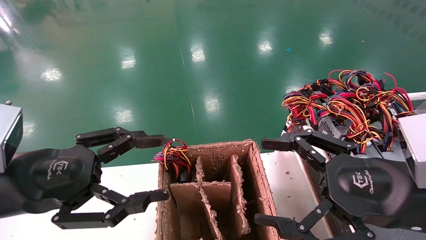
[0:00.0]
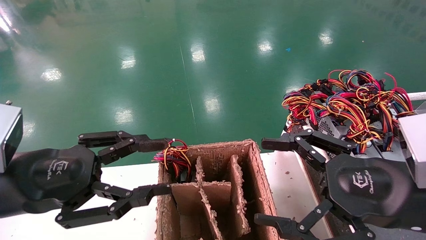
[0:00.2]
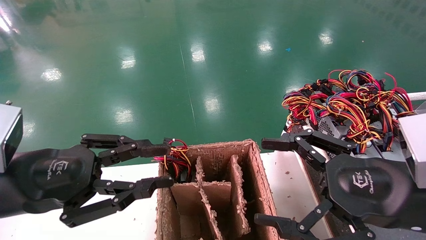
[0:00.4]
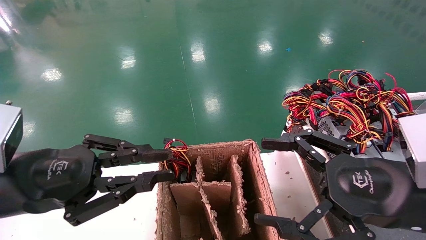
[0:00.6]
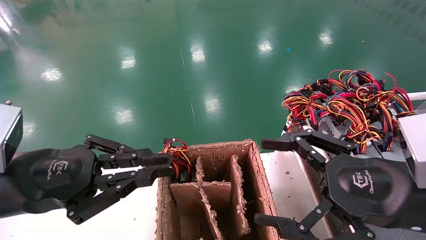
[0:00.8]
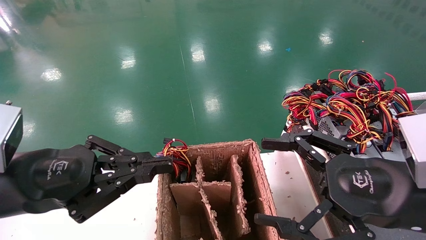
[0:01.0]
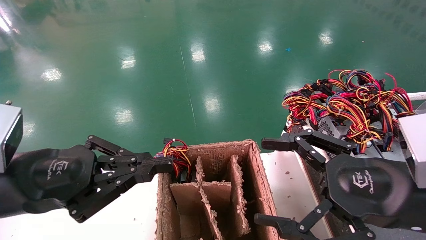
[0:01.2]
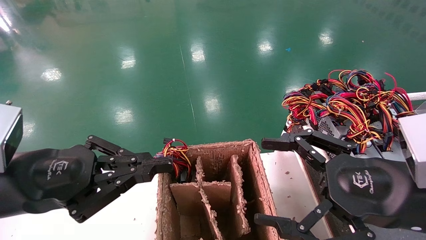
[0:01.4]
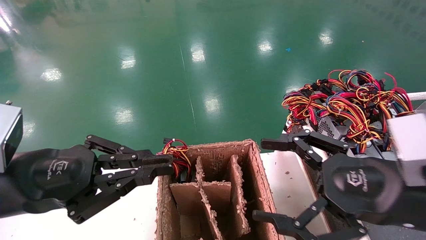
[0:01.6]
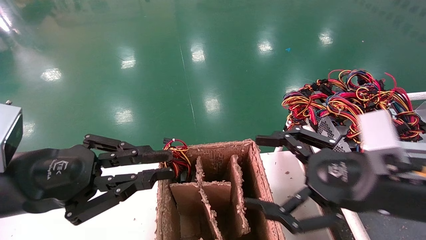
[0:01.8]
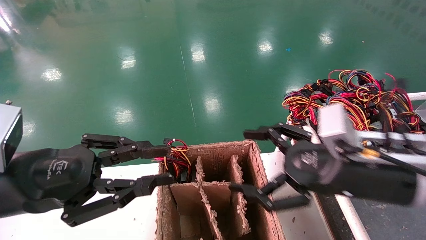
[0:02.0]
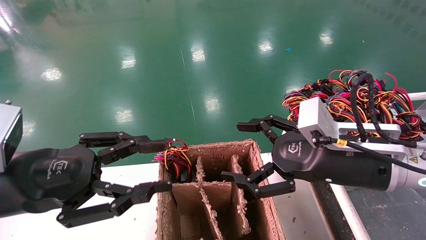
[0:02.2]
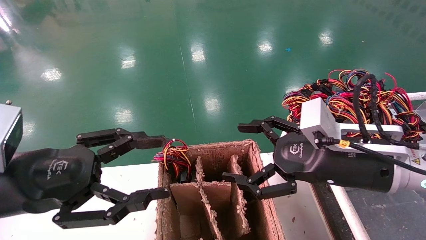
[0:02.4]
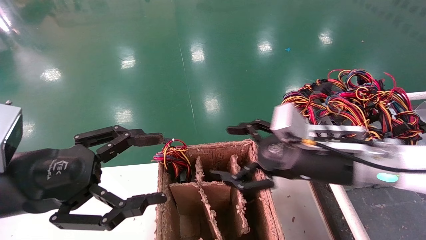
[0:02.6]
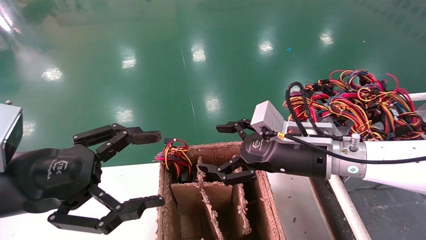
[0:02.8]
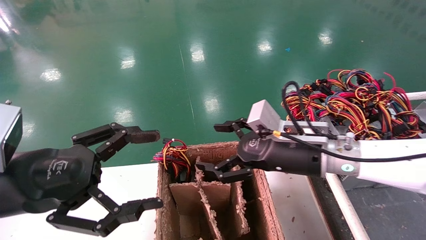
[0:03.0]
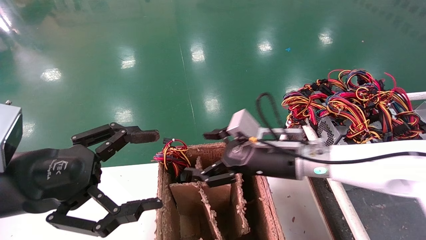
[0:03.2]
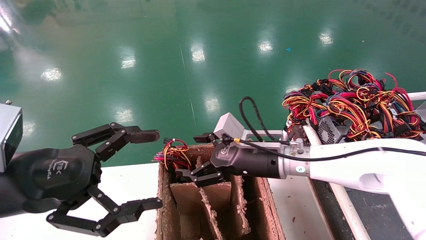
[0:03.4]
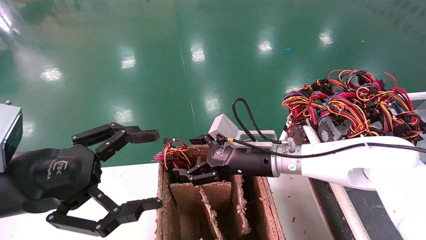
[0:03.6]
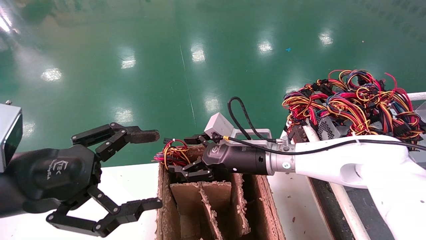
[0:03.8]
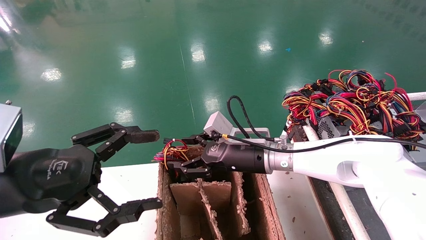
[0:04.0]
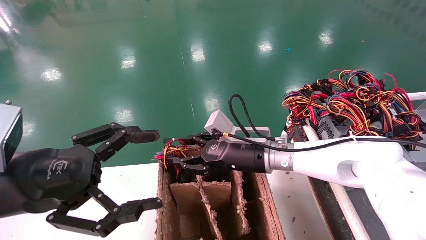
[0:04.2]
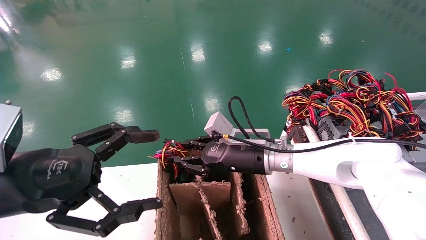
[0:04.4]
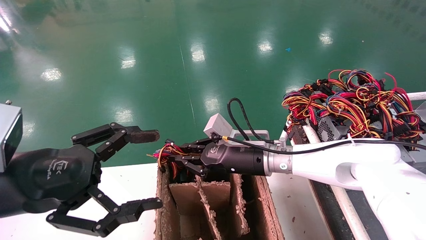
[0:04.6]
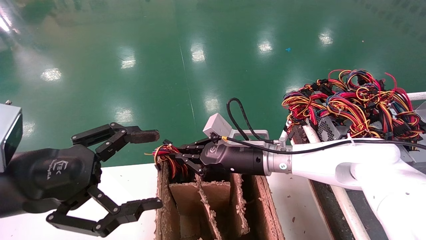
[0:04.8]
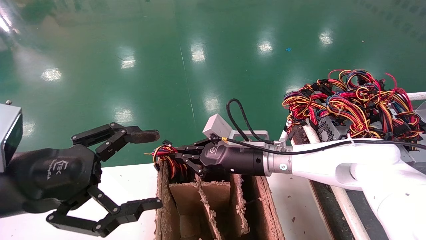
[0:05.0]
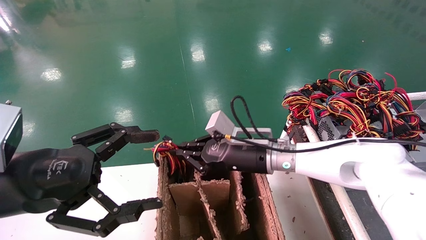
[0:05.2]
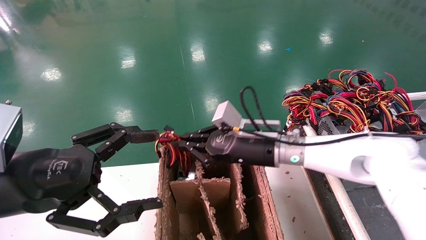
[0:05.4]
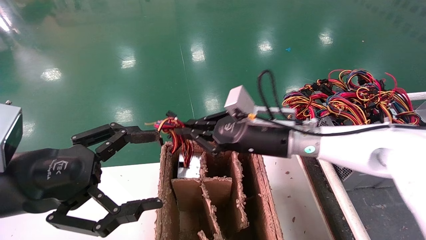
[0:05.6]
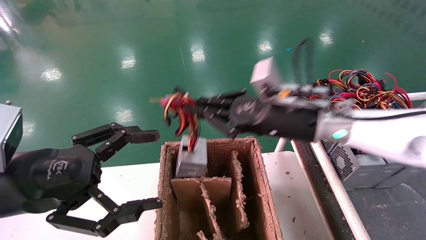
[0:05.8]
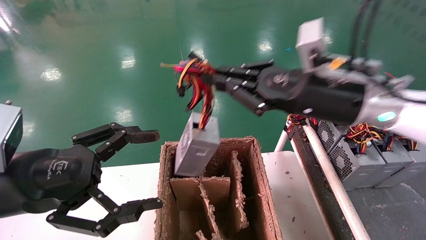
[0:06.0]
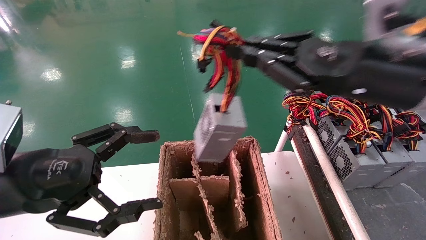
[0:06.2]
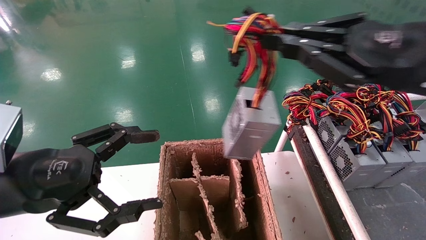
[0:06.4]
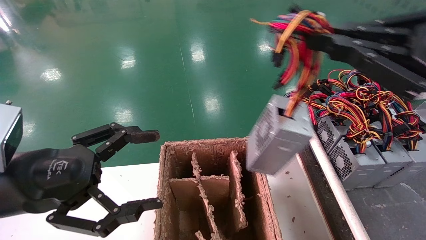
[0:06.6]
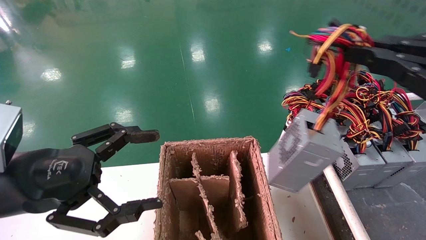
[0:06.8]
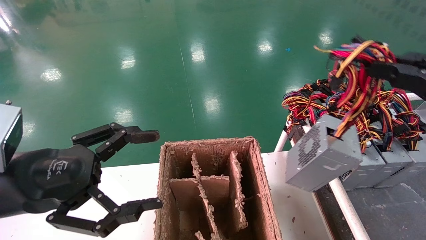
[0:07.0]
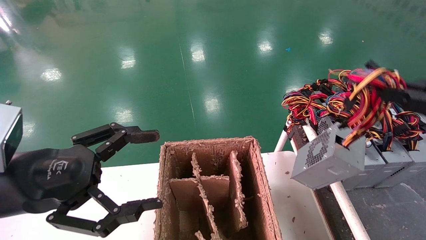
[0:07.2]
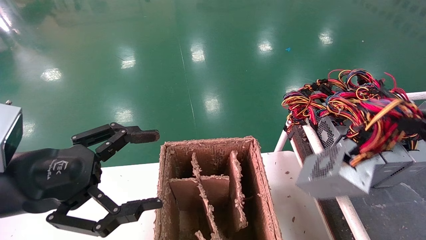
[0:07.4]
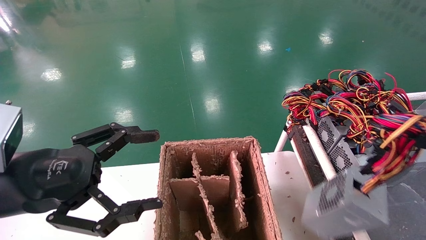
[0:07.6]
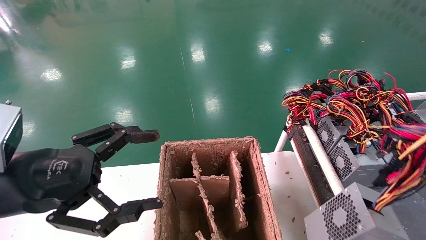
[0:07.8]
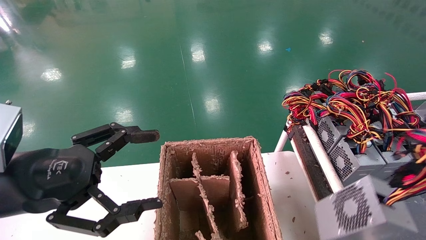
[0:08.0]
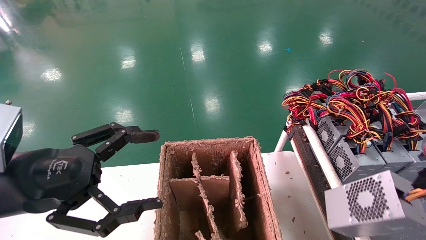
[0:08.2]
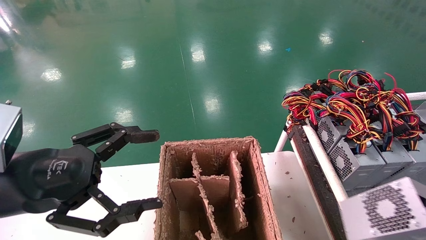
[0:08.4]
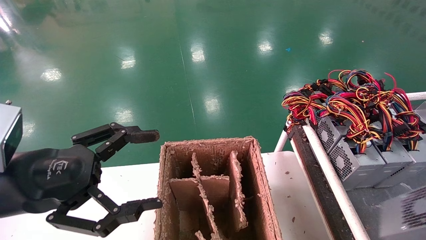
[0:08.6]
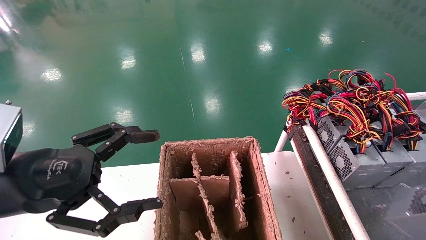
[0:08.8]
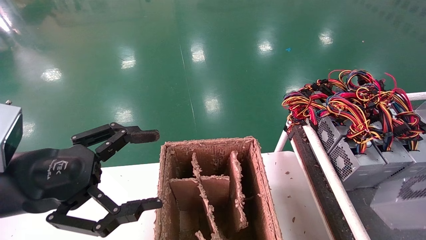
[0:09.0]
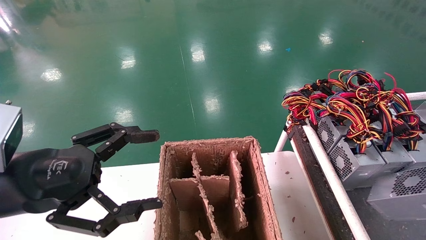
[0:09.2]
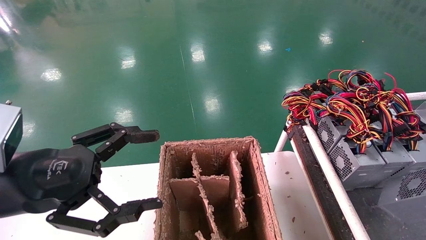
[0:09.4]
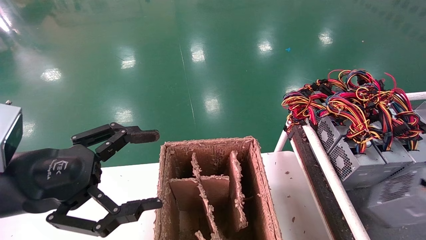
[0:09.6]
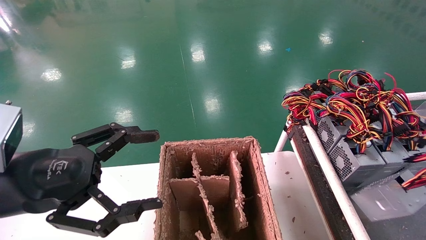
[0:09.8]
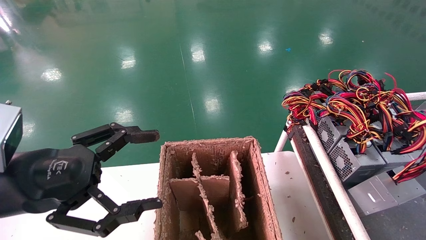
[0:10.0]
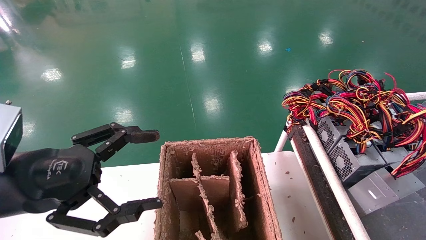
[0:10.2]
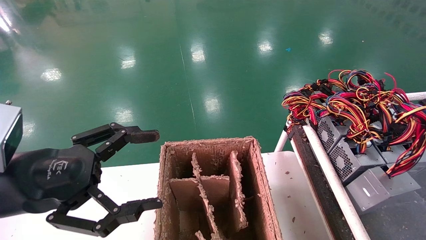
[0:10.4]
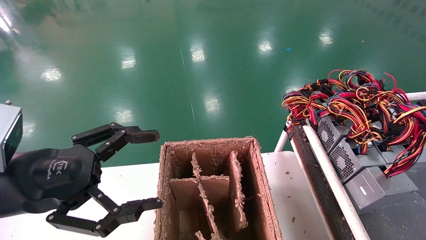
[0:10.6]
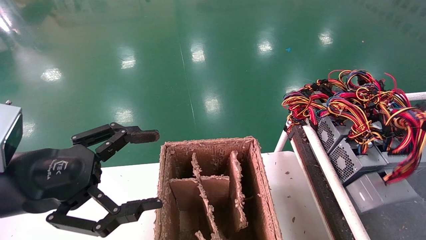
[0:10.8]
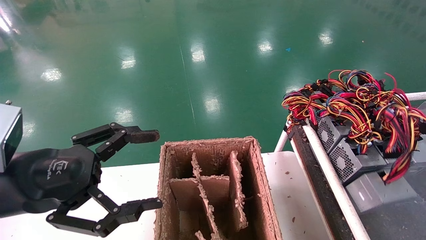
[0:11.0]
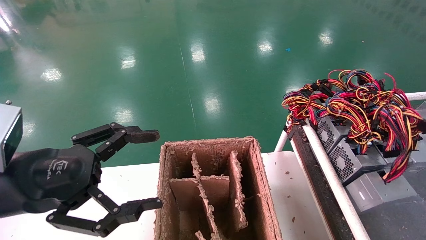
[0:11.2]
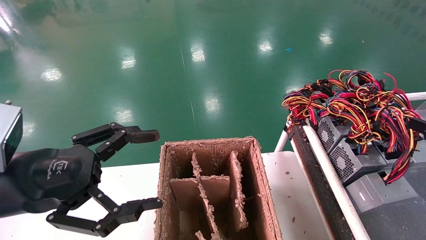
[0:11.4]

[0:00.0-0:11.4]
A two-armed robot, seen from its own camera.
Step, 0:01.6 to 0:04.8: Grab and lift the power supply from the large box.
0:00.0 to 0:01.4: The left gripper closes its fingers.
0:01.4 to 0:02.8: The left gripper opens. The right gripper moves forward and to the left, some 15 cm.
0:02.8 to 0:04.2: The right gripper is displaced to the left and forward by about 10 cm, and closes.
0:04.2 to 0:05.6: The right gripper shifts approximately 5 cm upward, and closes.
0:05.6 to 0:07.2: The right gripper heads to the right and backward, covering roughly 35 cm.
0:07.2 to 0:08.6: The right gripper travels backward and to the right by some 15 cm.
0:08.6 to 0:10.0: The right gripper goes some 10 cm forward and downward.
0:10.0 to 0:11.4: The right gripper moves some 5 cm.

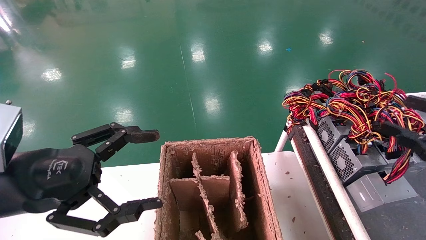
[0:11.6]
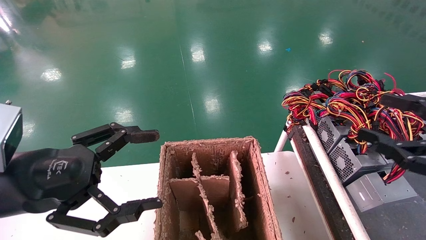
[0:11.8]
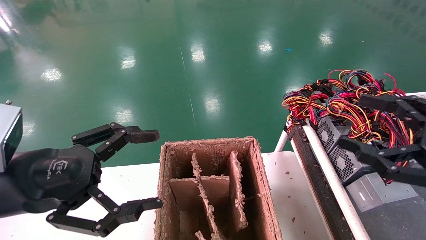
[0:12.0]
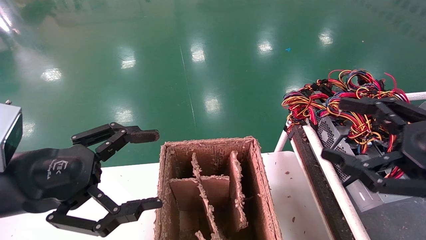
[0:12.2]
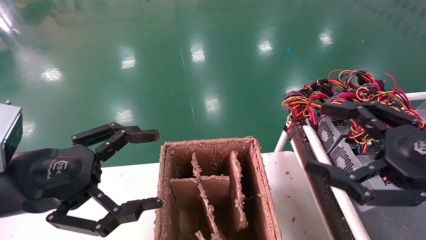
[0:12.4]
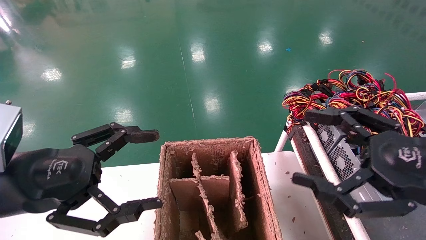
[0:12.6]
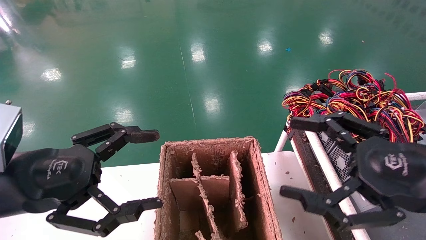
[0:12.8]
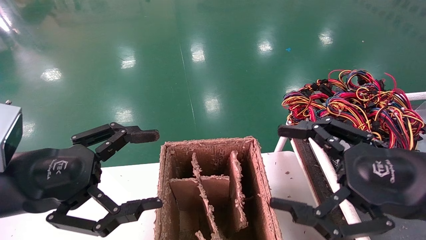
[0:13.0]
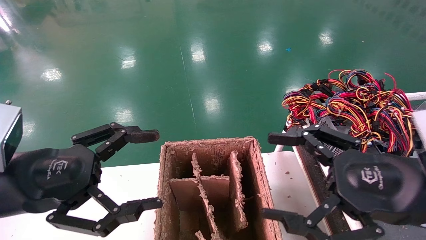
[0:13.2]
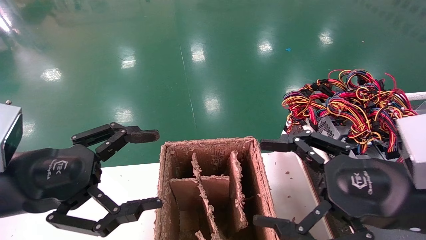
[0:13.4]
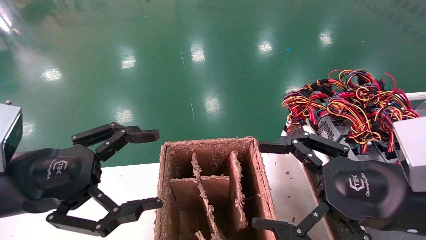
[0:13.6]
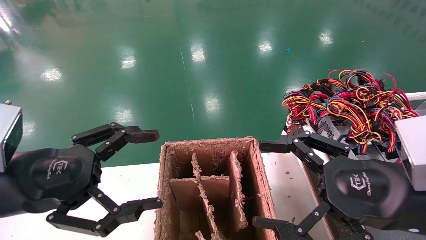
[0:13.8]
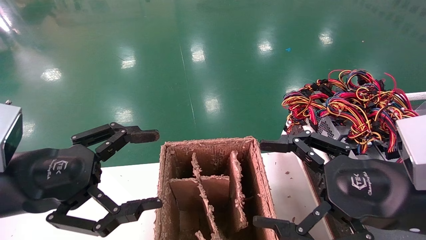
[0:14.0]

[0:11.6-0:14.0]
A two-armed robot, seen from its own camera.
0:11.6 to 0:12.8: The right gripper shifts roughly 15 cm to the left, and opens.
0:12.8 to 0:14.0: There are only small adjustments of the grippers.

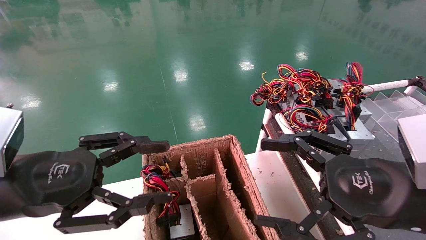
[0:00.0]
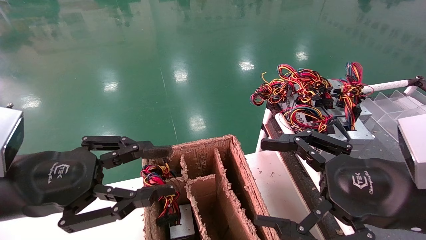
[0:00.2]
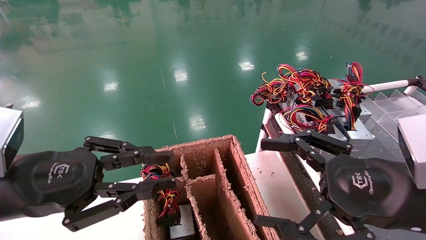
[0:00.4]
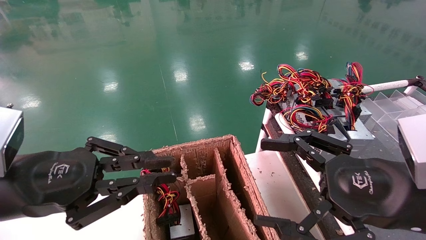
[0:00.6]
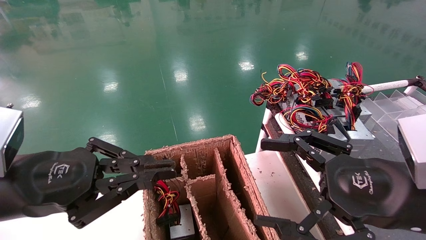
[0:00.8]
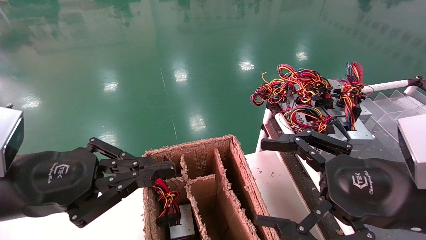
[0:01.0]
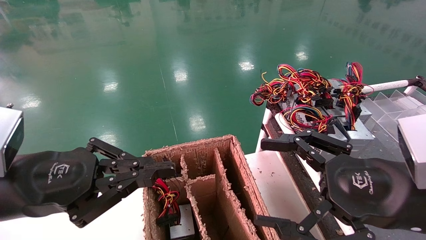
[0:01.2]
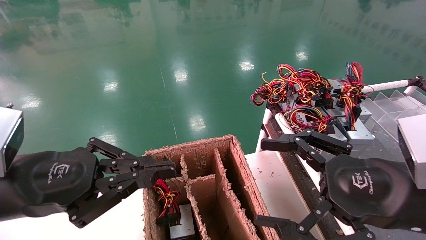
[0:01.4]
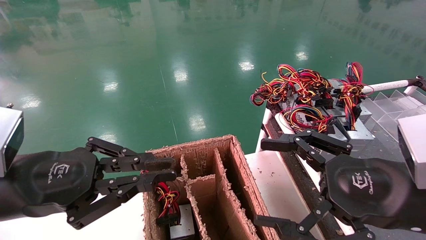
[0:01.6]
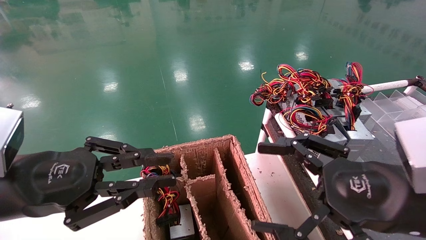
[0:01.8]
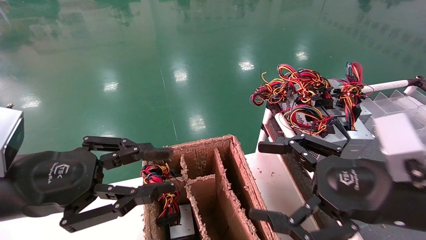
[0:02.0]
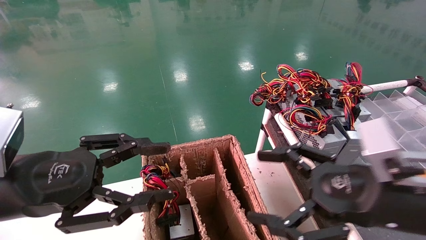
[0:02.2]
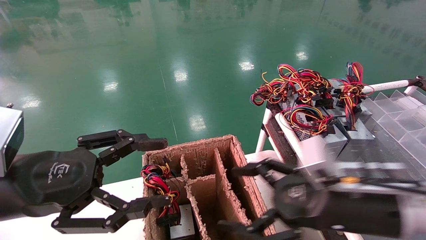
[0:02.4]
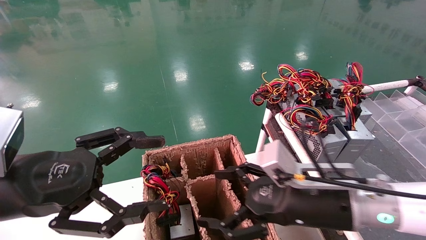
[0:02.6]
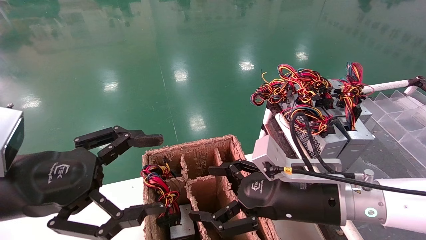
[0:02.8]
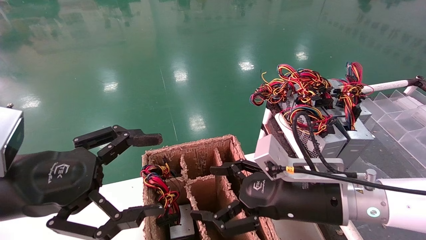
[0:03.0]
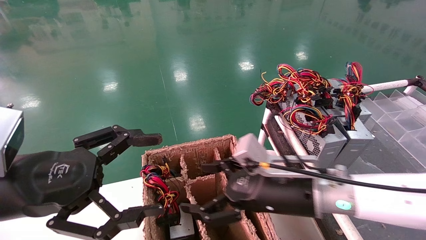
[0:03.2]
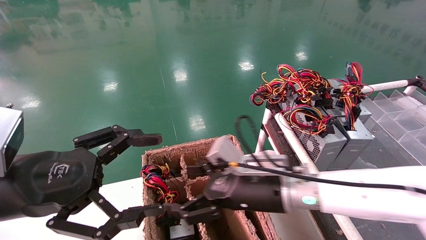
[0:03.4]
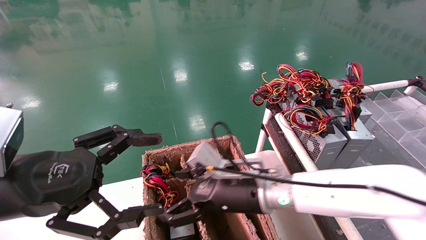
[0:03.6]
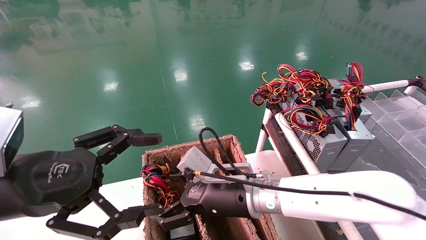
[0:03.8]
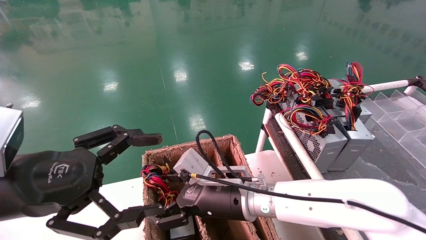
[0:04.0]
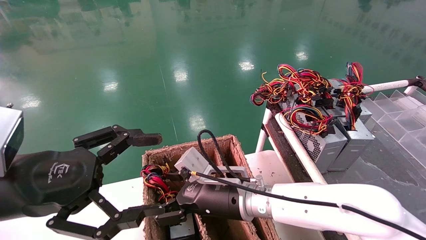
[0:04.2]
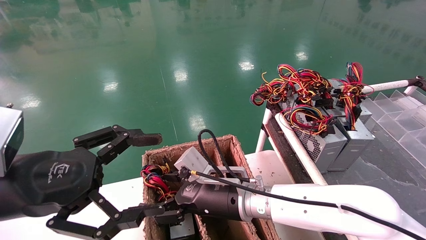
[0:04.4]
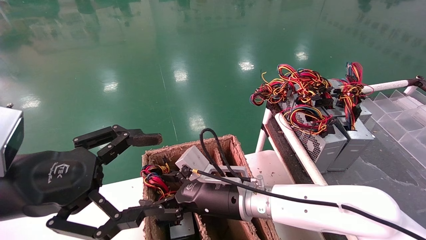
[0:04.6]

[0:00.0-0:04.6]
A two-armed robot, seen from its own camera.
0:00.0 to 0:01.6: The left gripper closes.
0:01.6 to 0:03.0: The left gripper opens. The right gripper heads to the left, forward and downward, covering about 15 cm.
0:03.0 to 0:04.6: The right gripper heads to the left, forward and downward, covering about 15 cm.
